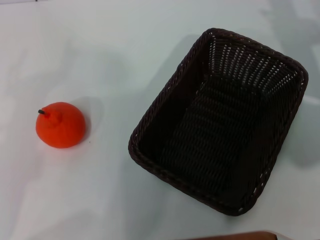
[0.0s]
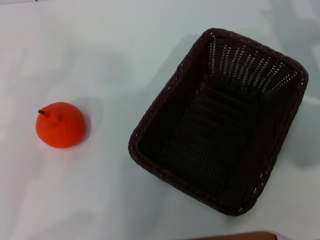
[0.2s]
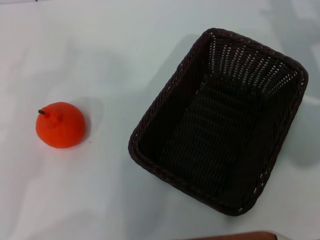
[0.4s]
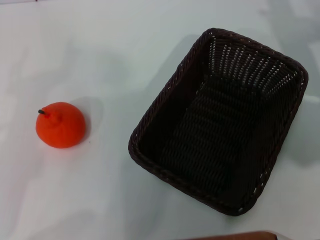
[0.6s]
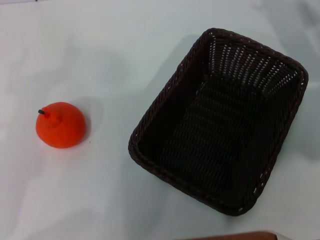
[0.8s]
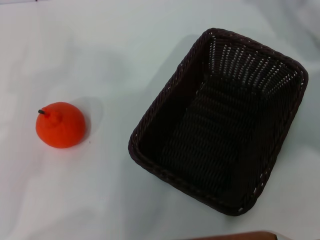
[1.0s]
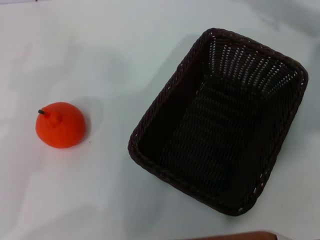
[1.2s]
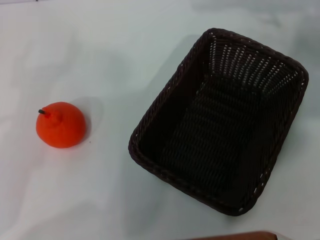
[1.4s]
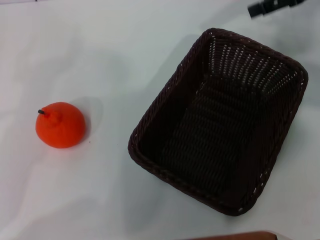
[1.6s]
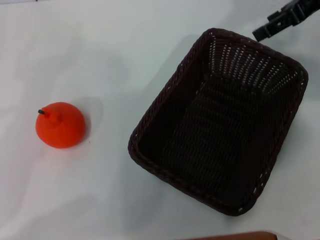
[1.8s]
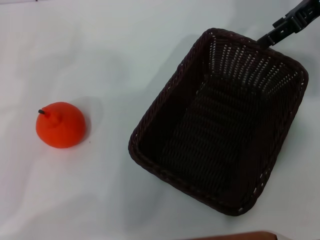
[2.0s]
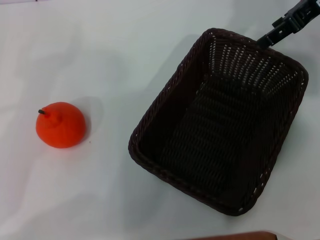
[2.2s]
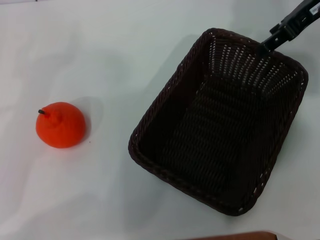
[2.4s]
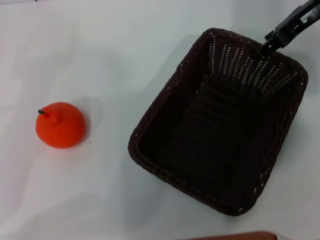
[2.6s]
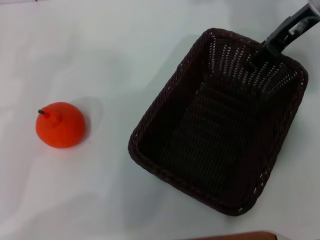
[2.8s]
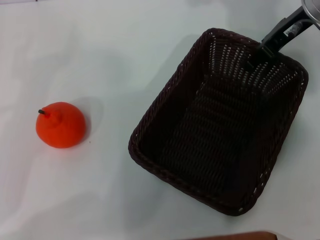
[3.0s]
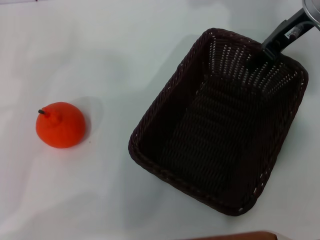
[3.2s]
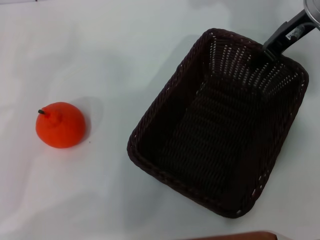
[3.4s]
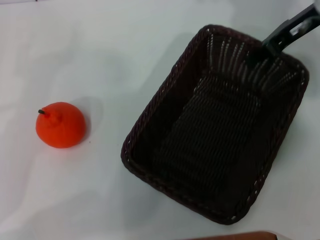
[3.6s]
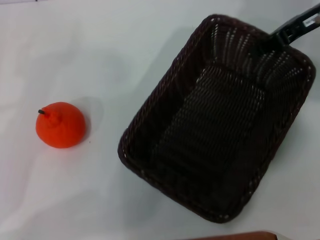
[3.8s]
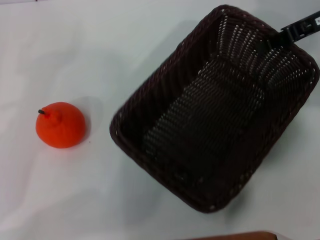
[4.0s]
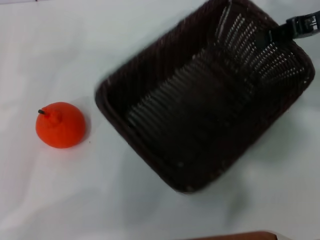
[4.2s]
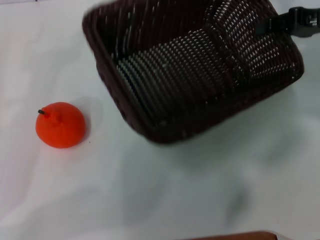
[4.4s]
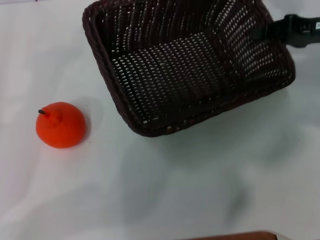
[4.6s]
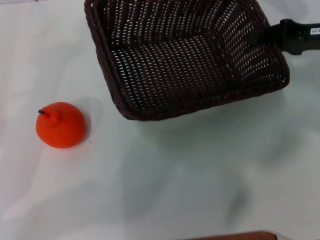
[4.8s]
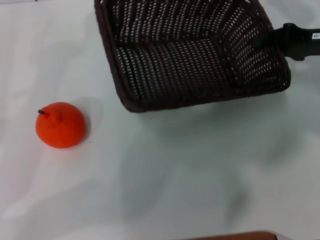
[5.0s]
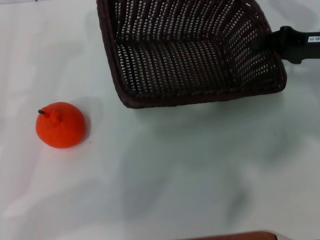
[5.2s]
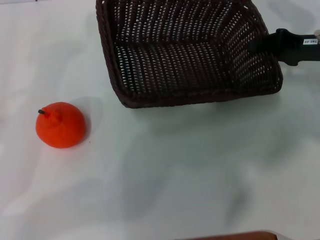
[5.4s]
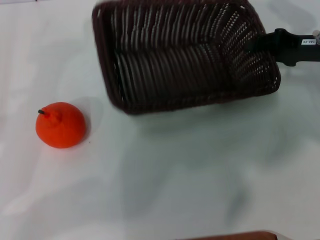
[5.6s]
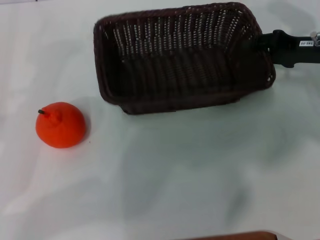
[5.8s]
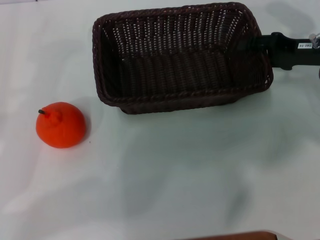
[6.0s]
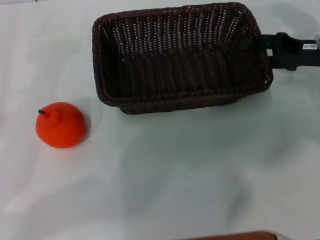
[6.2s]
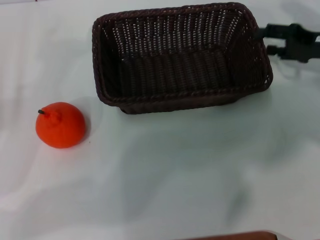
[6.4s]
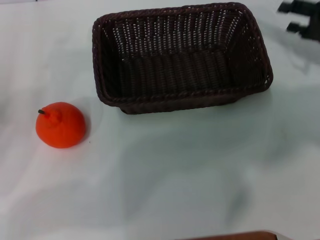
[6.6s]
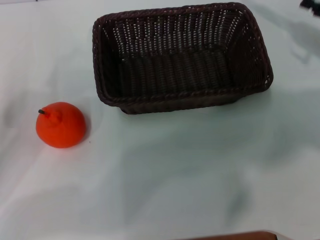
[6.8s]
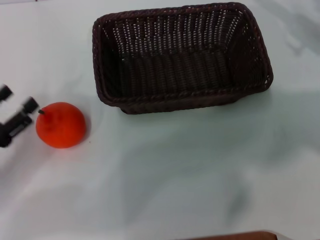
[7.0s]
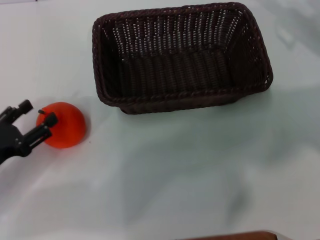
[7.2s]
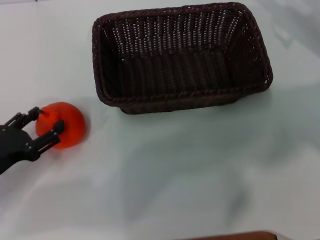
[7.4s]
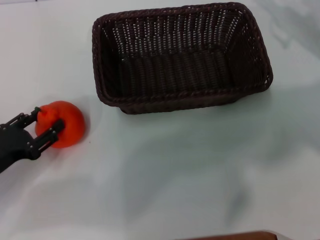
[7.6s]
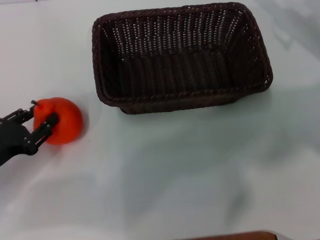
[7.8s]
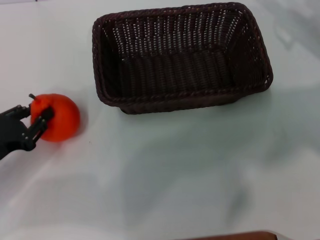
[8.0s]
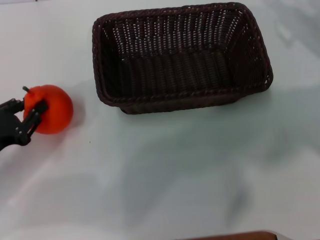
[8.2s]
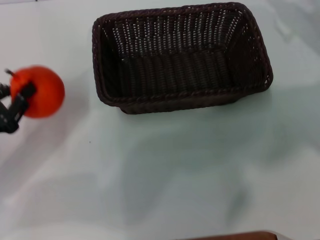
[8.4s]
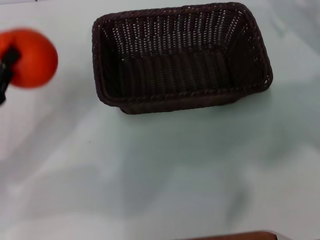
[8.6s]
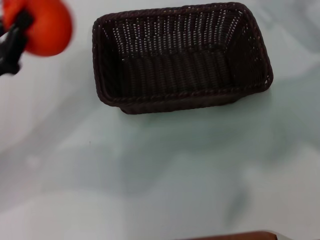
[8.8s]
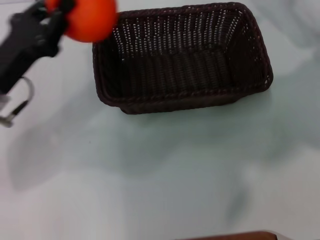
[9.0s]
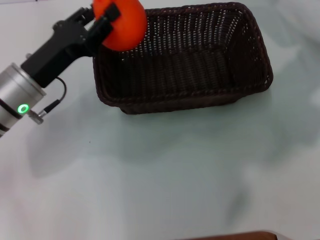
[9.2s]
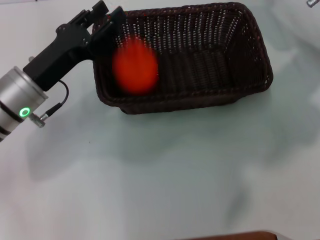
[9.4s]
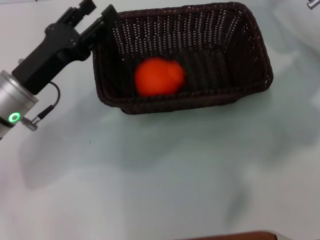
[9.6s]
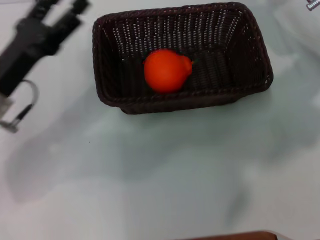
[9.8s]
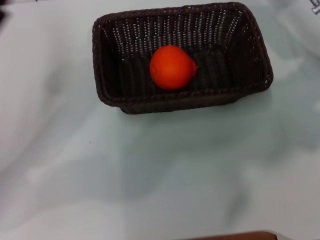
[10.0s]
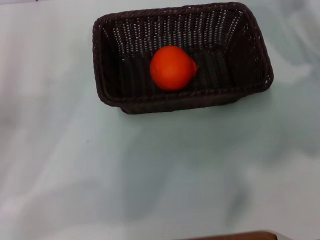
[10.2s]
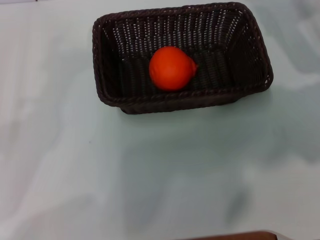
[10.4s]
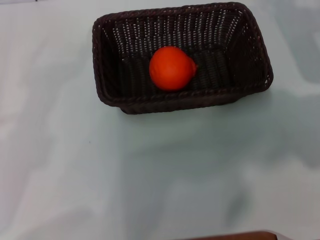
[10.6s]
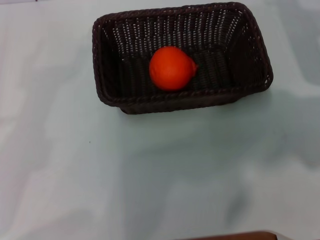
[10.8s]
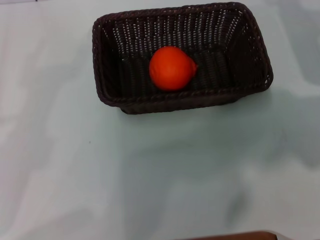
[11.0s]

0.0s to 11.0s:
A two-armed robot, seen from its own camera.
Task of the whole recording: the right gripper pick up the black basket and place it horizontally in the middle of the table, the left gripper pick up the orange and place it into the black basket.
Step, 0.0s to 3.4s: Pick up the dark basket with the right gripper.
Step, 3.8s to 6.0s: Place the dark basket in the center of view with the right gripper.
Step, 6.2s to 8.0s: Pick up the orange with the left gripper.
Step, 8.4s to 9.4s: Place the orange into the dark basket with the left gripper.
0.0s to 1.6s: The right gripper shifts about 15 cm upward.
1.6s to 3.2s: The right gripper shifts about 5 cm downward, and closes up.
3.2s to 4.8s: The right gripper shifts roughly 10 cm to the right, downward and backward, and closes.
4.8s to 6.2s: The right gripper opens.
6.2s to 7.8s: The left gripper changes place by some 5 cm.
7.8s to 9.4s: The right gripper is displaced to the left by some 10 cm; the left gripper is displaced to the right, forward and upward by approximately 15 cm, and closes, then reopens.
9.4s to 11.0s: The right gripper moves to the right, approximately 5 cm. The left gripper travels to the left and backward by some 20 cm, and opens its fingers.
